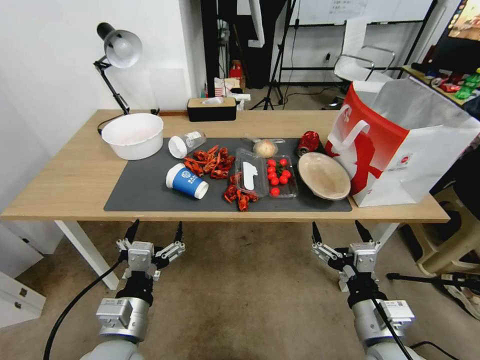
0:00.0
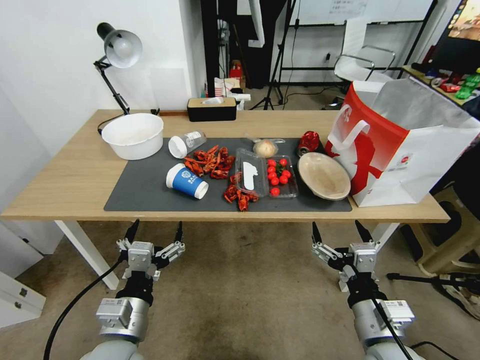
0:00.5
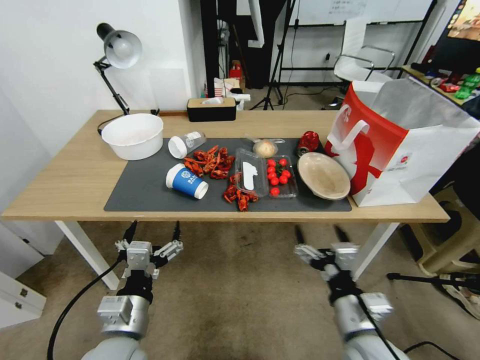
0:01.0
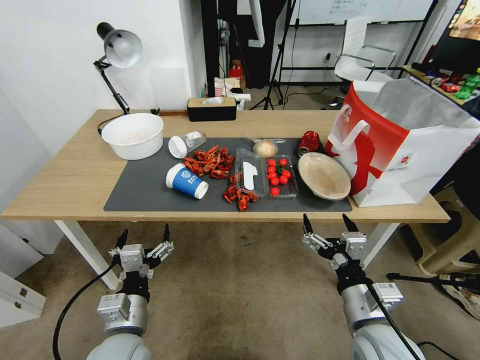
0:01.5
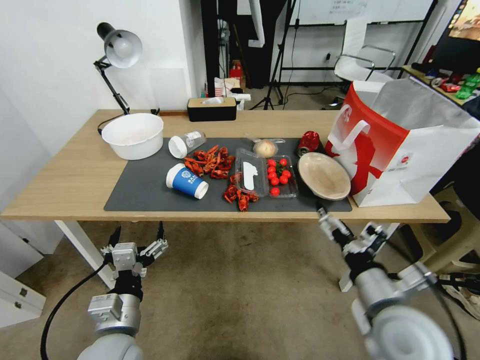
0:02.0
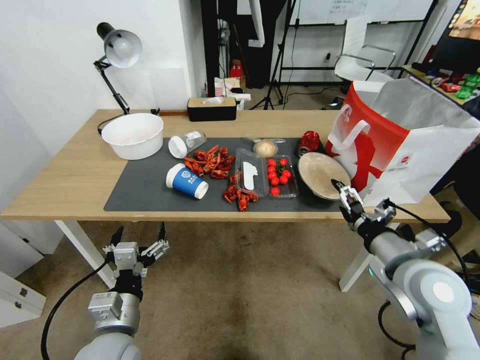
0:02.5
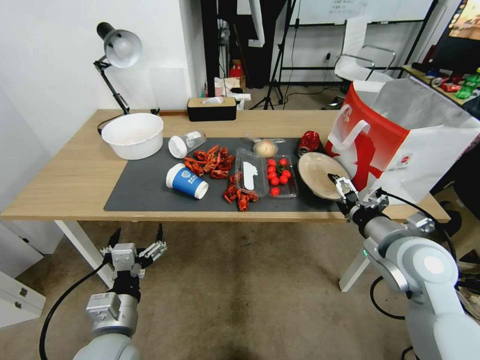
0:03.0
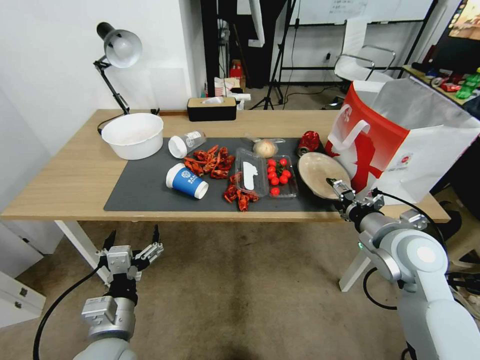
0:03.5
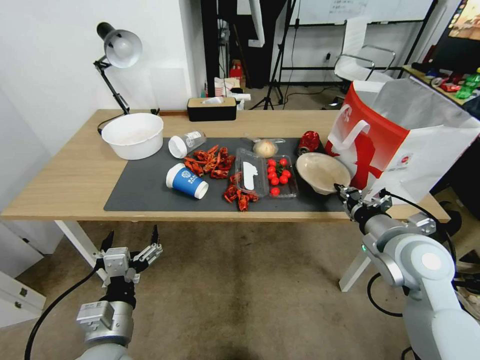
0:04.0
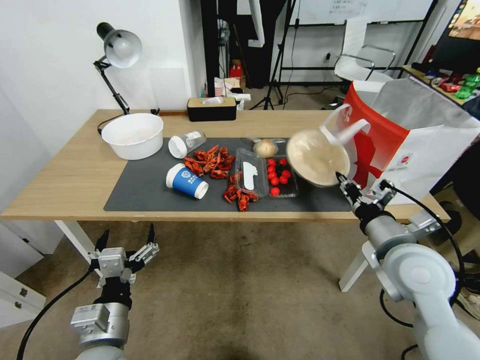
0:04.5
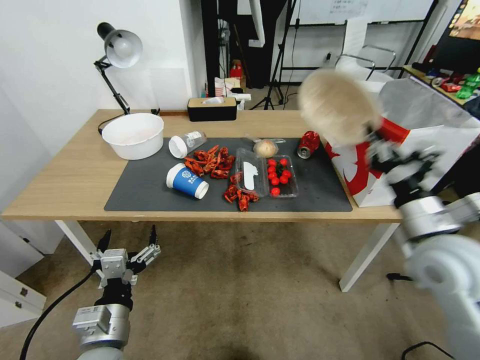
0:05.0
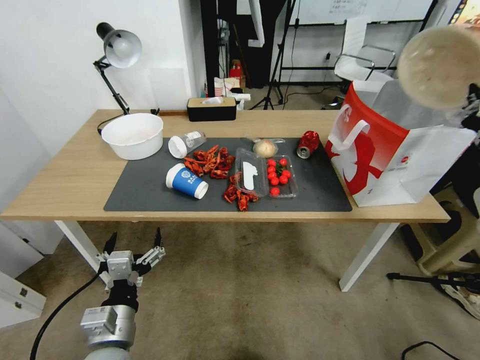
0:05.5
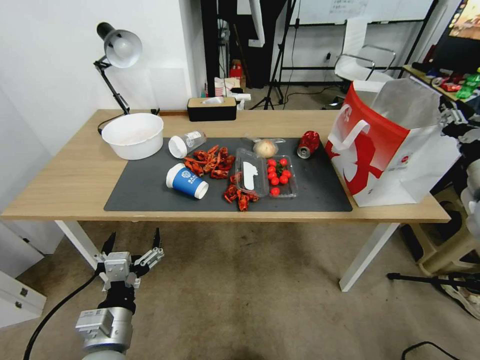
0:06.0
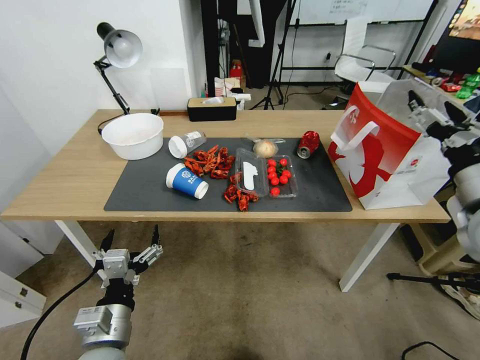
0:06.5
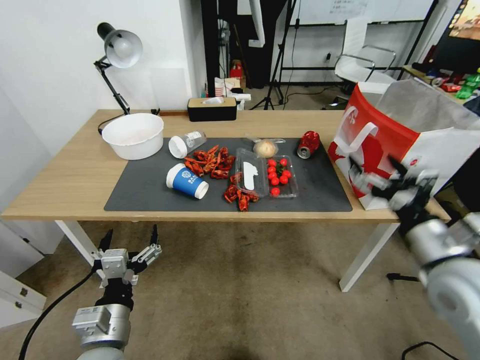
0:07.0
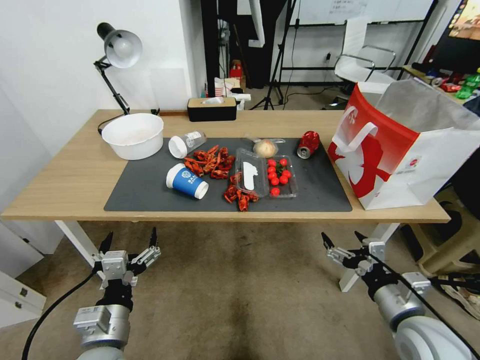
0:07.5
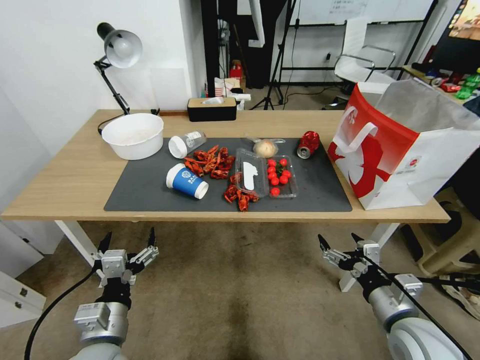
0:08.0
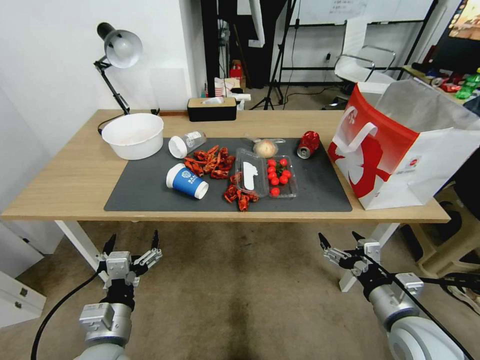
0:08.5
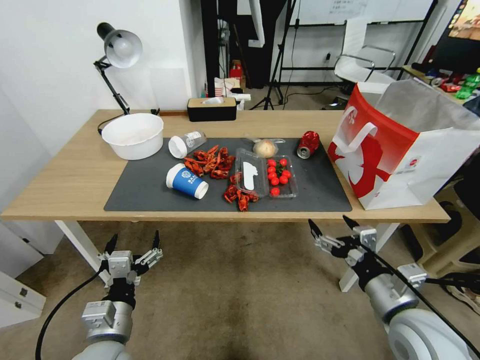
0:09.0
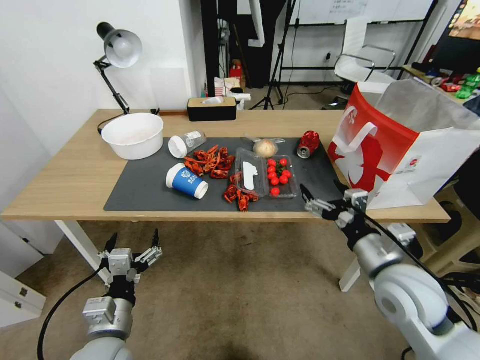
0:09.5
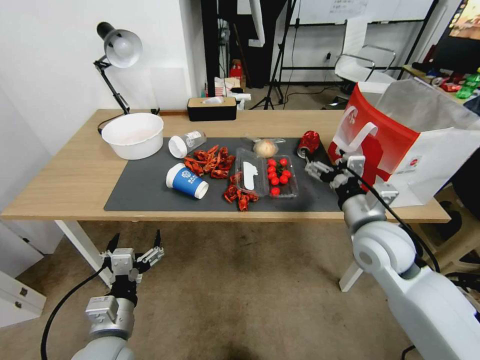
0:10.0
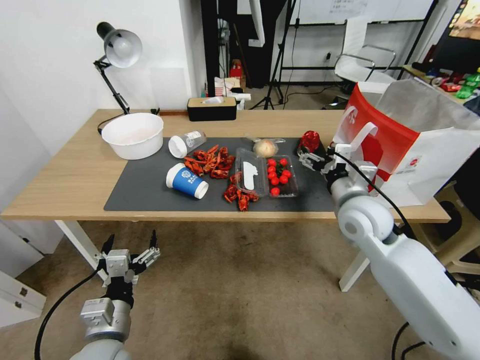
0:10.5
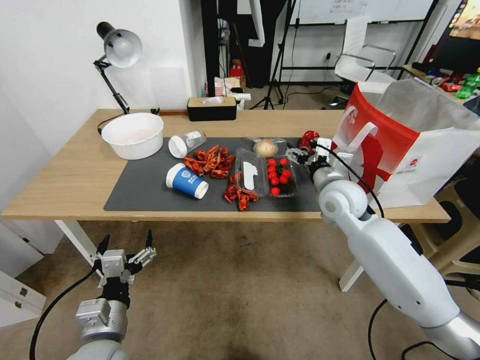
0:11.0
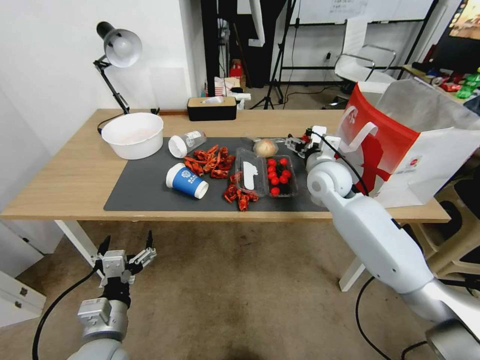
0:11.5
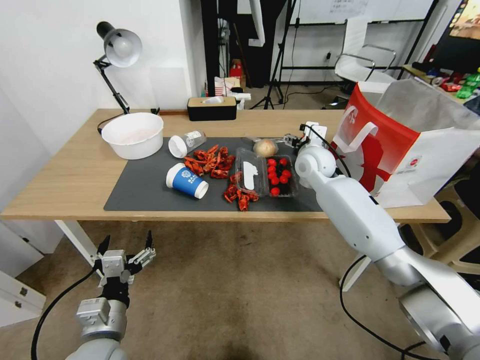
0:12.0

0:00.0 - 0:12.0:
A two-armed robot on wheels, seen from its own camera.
0:02.0 - 0:04.0: The right gripper moves forward, roughly 10 cm, and closes.
0:04.0 - 0:06.0: The right gripper travels to the right and upward by about 15 cm.
0:06.0 - 0:08.0: The right gripper travels downward, backward and to the left by approximately 25 cm, and opens up.
0:08.0 - 0:10.0: The right gripper goes roughly 20 cm forward and upward.
0:10.0 - 0:12.0: The right gripper heads forward, covering roughly 20 cm.

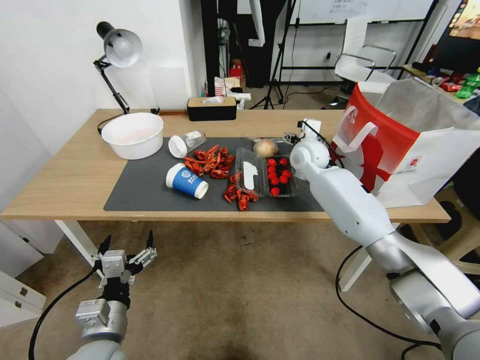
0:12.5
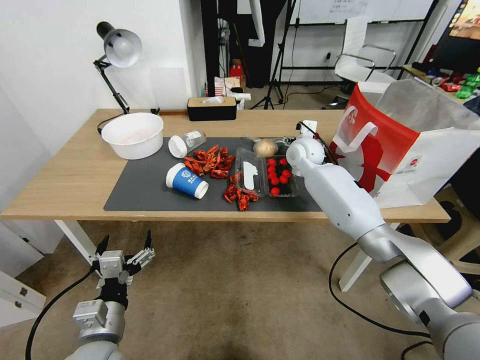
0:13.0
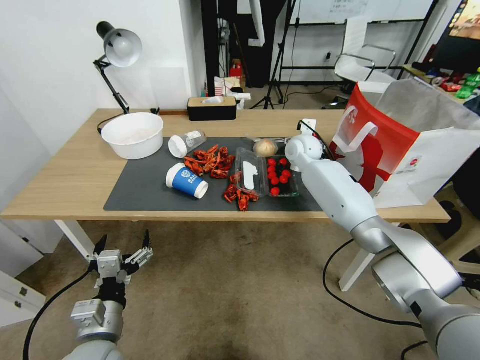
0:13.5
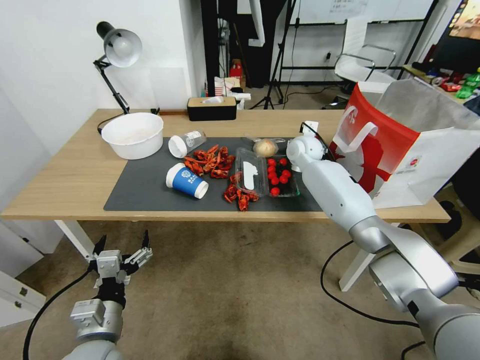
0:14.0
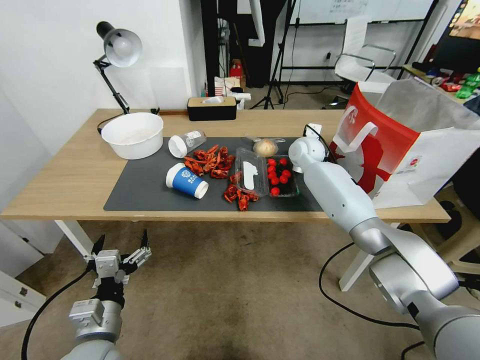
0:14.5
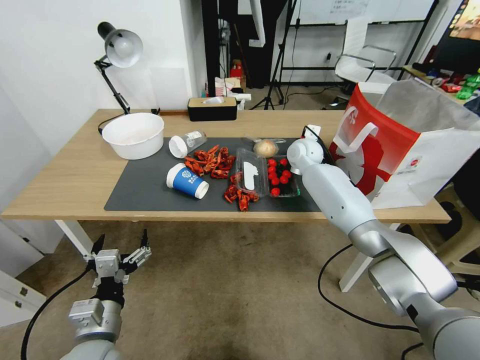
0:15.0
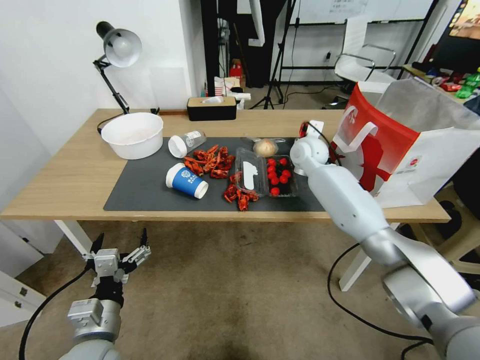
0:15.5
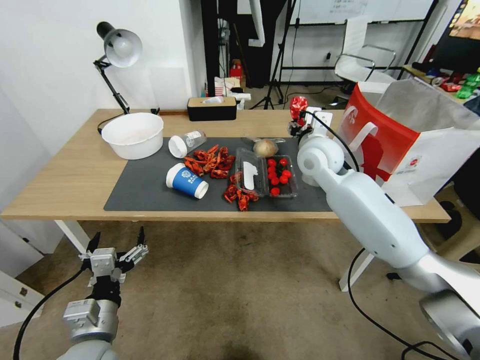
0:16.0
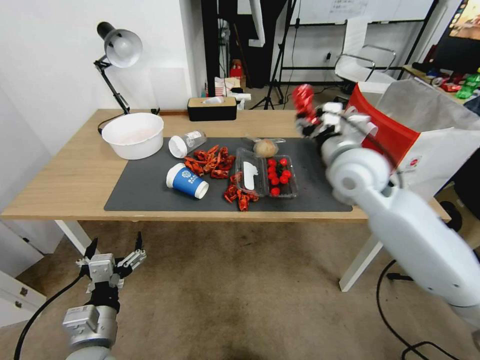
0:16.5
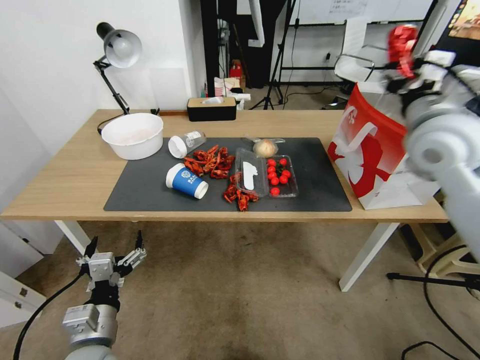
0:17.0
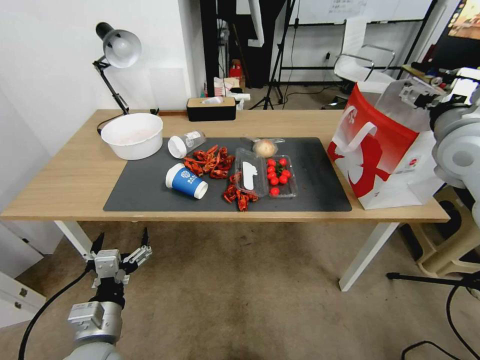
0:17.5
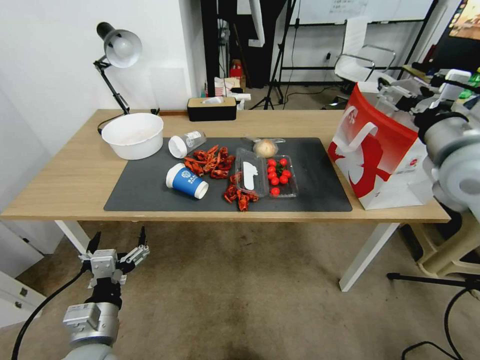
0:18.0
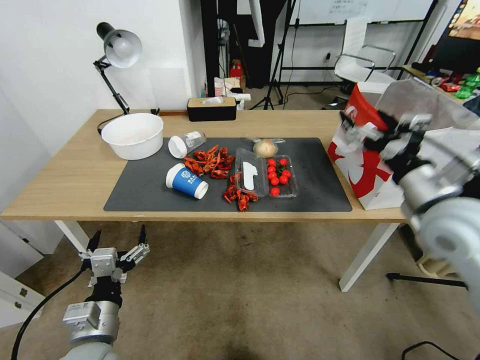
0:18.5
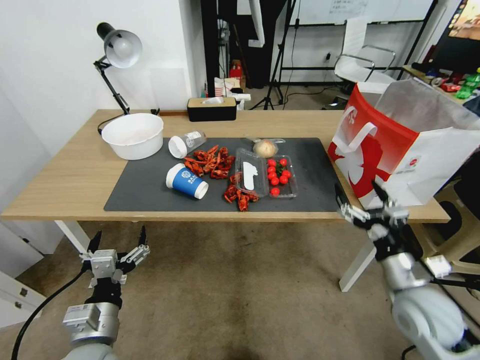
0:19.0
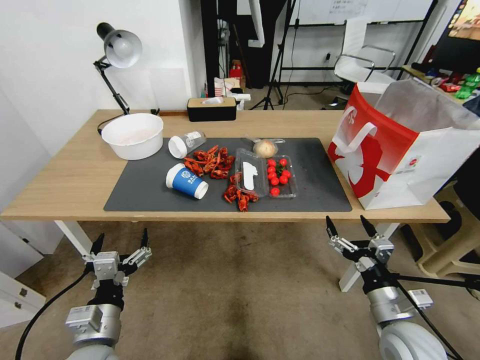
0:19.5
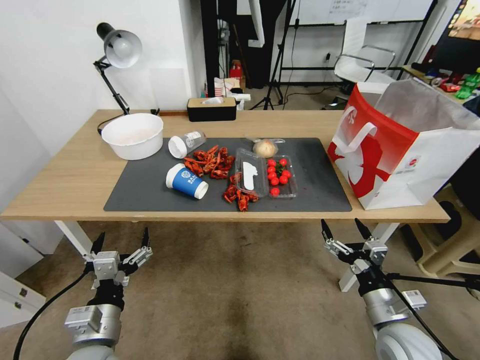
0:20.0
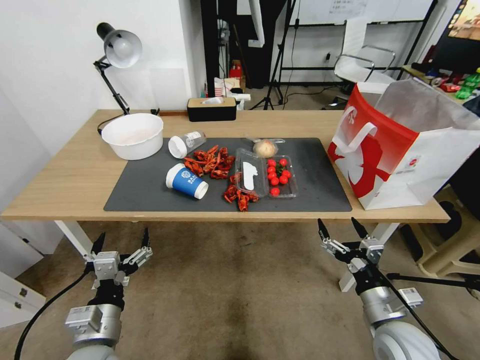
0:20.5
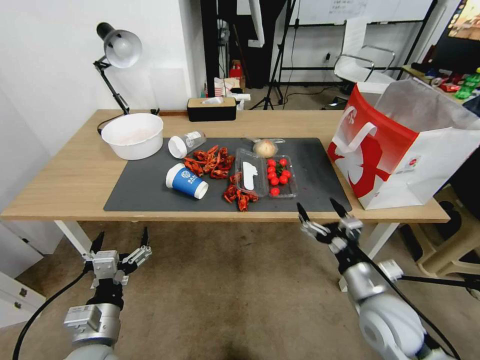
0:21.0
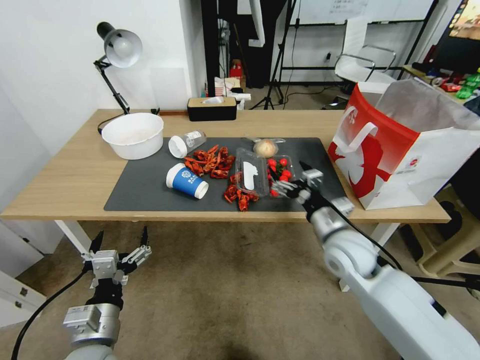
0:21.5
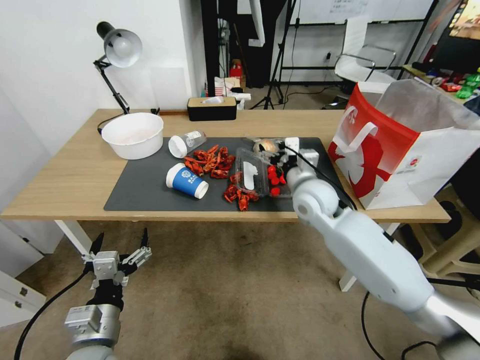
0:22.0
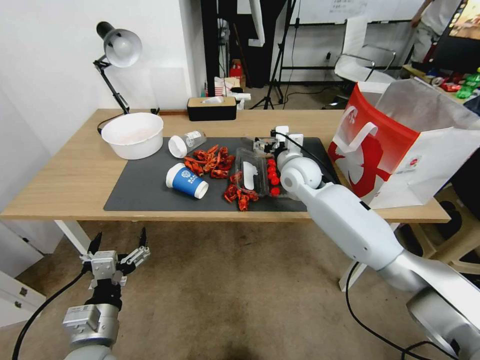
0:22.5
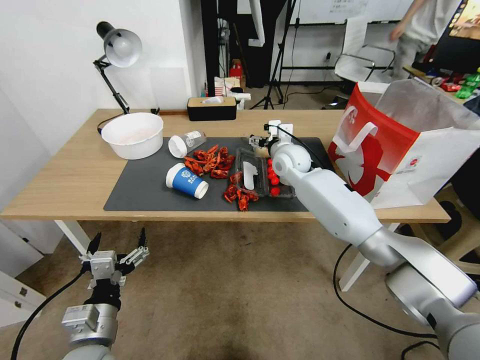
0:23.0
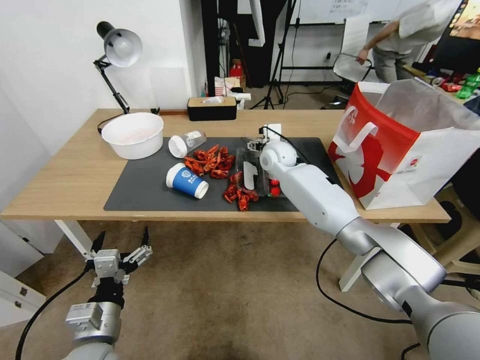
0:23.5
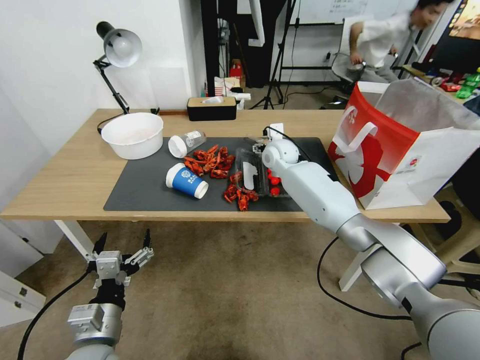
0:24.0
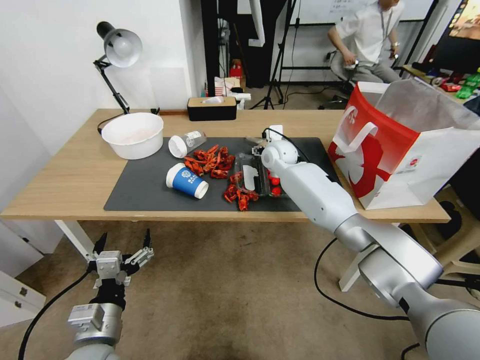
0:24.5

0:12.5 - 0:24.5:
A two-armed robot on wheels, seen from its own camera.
0:12.5 - 0:14.5: The right gripper moves approximately 5 cm.
0:14.5 - 0:16.5: The right gripper is displaced backward and upward by roughly 25 cm.
0:16.5 - 0:18.5: The right gripper moves backward and to the right, roughly 15 cm, and opens up.
0:18.5 - 0:20.5: The right gripper travels downward and backward by about 25 cm.
0:20.5 - 0:22.5: The right gripper shifts about 40 cm forward, to the left and upward.
0:22.5 - 0:24.5: The right gripper goes roughly 10 cm forward.

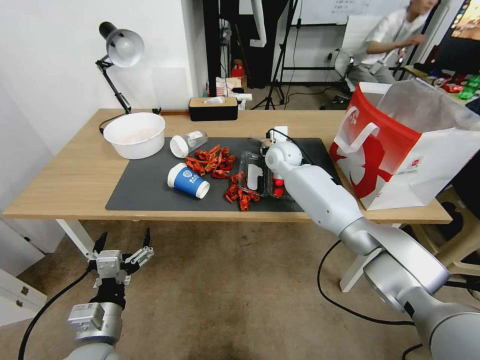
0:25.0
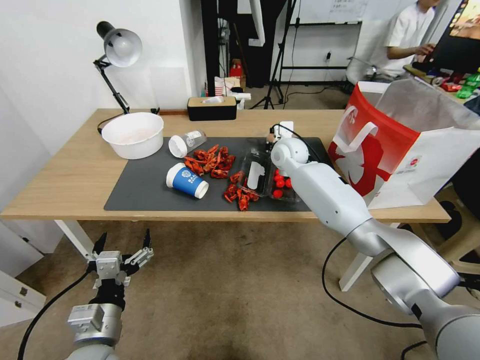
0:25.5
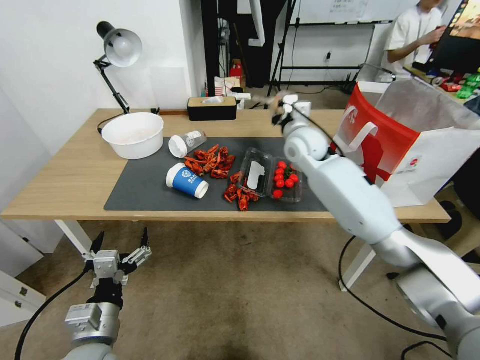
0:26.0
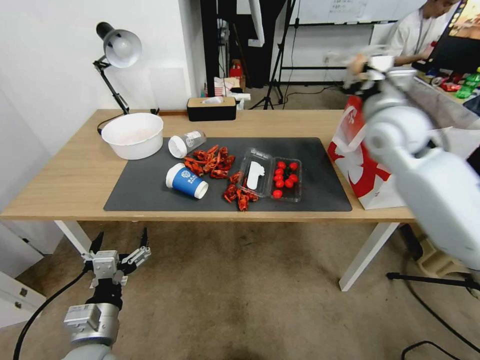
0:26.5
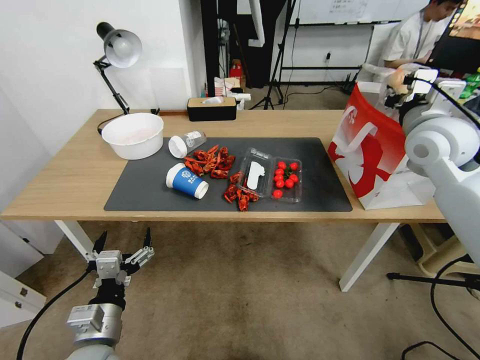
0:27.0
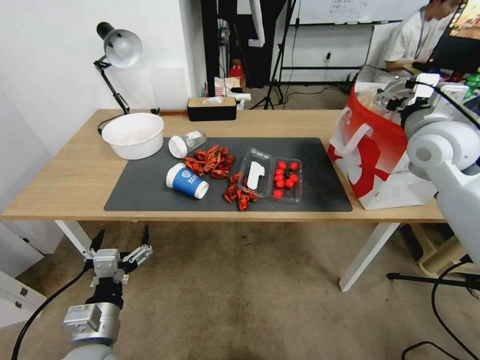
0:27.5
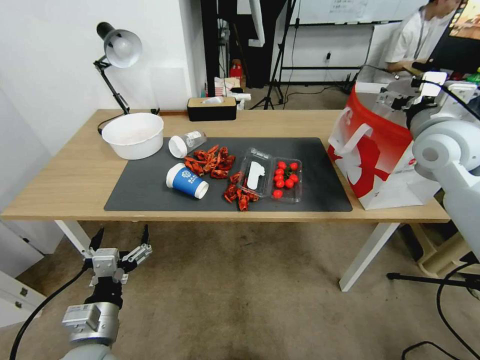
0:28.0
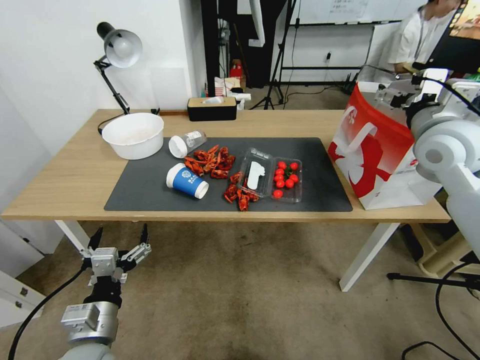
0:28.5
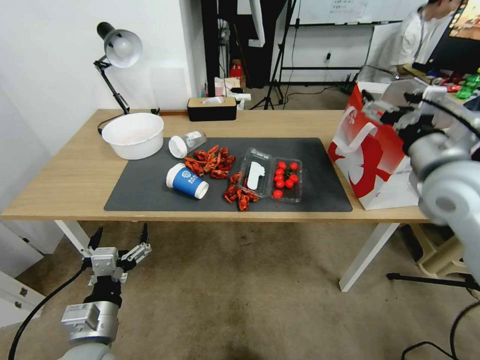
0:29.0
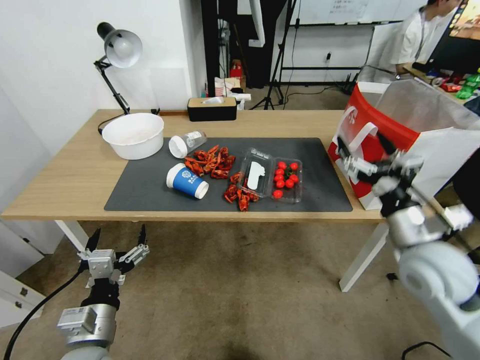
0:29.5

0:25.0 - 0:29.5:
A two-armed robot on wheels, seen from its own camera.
0:25.0 - 0:27.0: The right gripper is displaced to the right, upward and backward by roughly 30 cm.
0:27.0 - 0:29.5: The right gripper travels backward and downward by approximately 25 cm, and opens.
